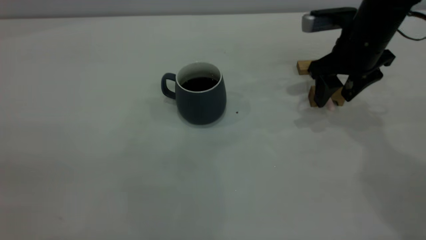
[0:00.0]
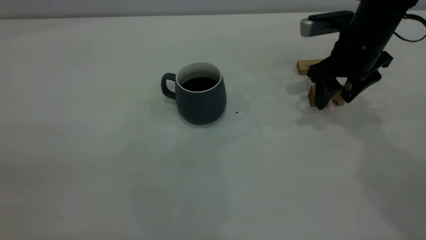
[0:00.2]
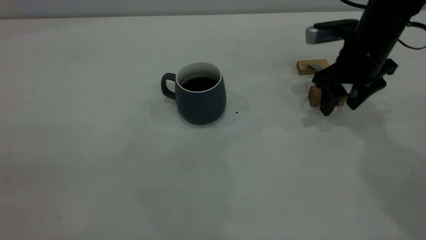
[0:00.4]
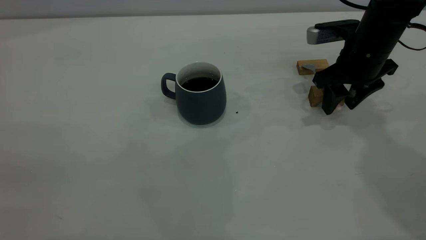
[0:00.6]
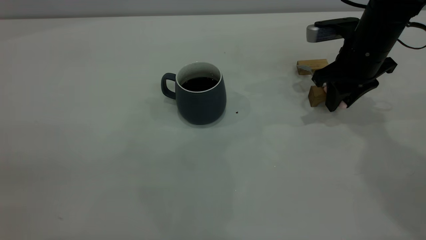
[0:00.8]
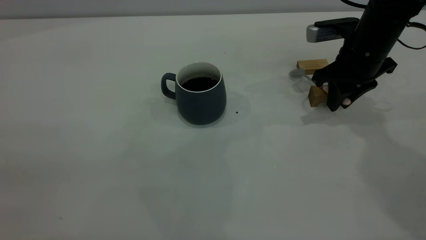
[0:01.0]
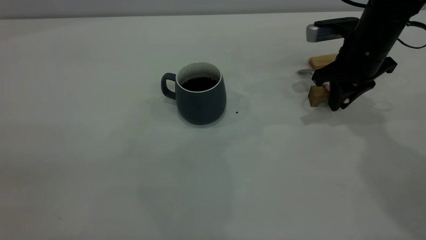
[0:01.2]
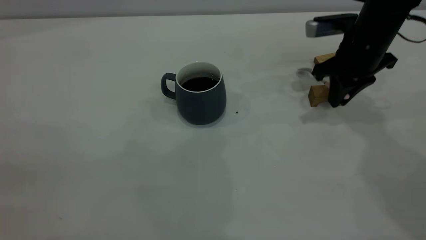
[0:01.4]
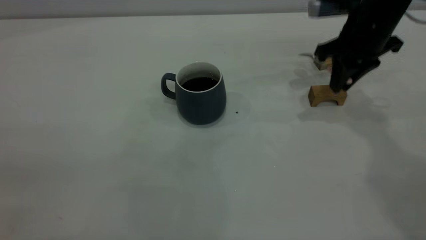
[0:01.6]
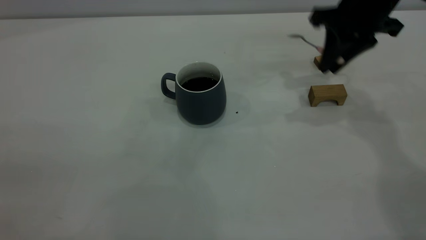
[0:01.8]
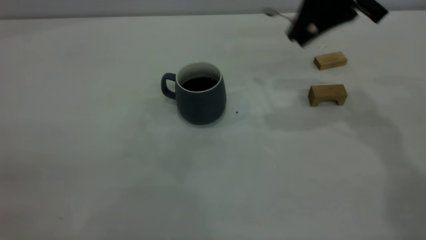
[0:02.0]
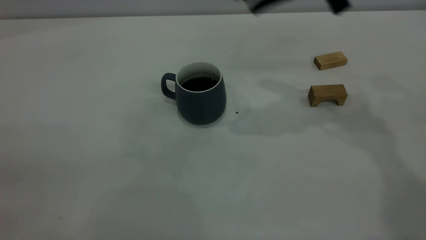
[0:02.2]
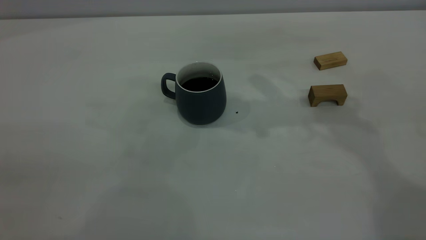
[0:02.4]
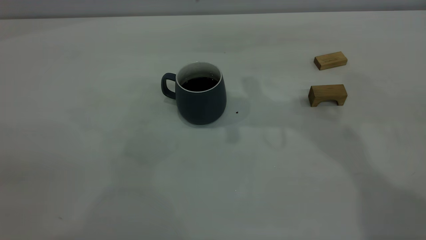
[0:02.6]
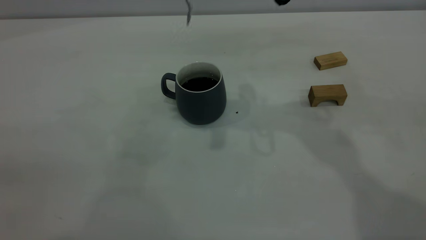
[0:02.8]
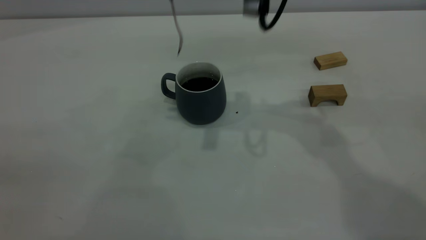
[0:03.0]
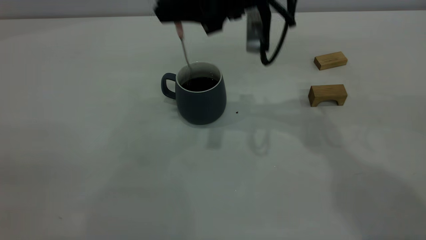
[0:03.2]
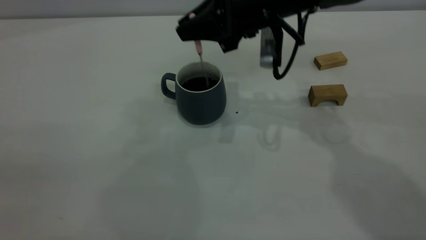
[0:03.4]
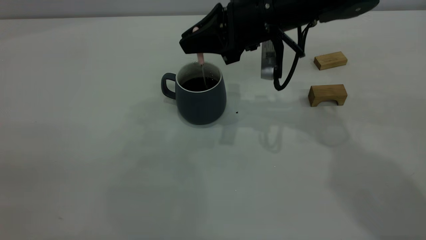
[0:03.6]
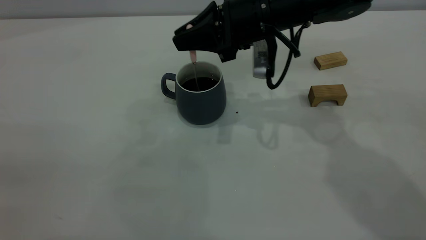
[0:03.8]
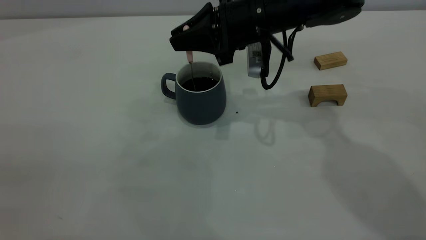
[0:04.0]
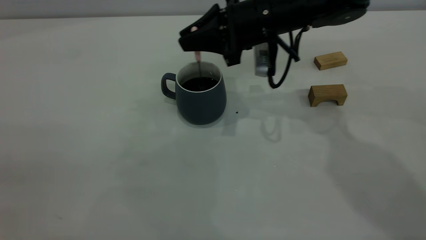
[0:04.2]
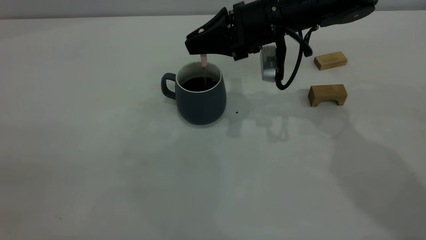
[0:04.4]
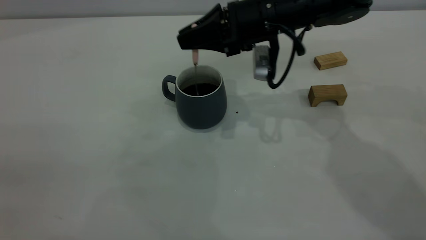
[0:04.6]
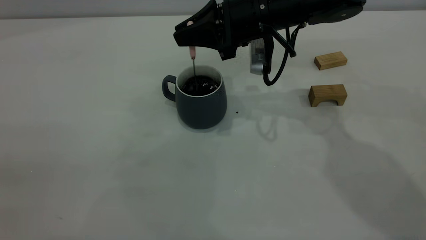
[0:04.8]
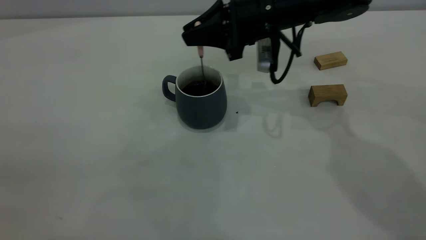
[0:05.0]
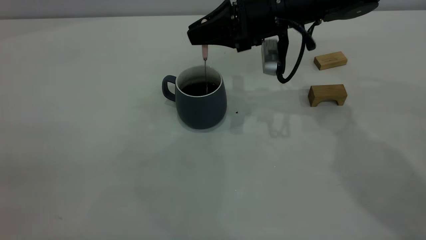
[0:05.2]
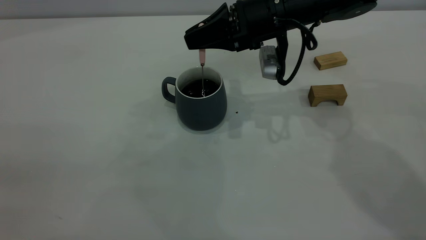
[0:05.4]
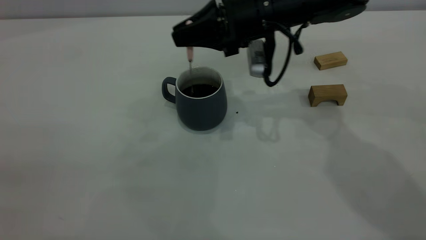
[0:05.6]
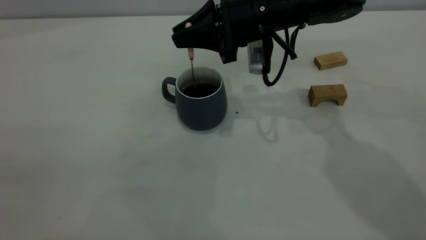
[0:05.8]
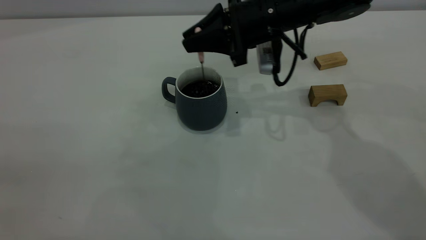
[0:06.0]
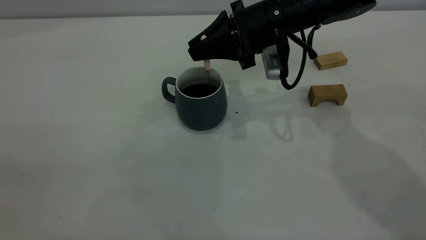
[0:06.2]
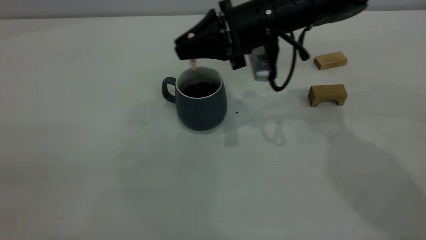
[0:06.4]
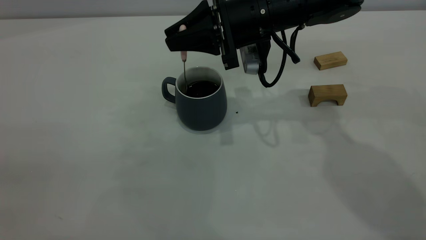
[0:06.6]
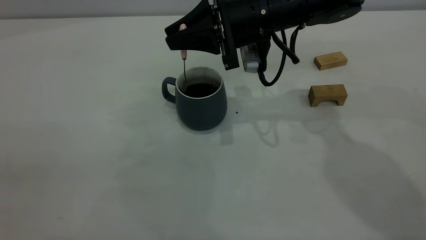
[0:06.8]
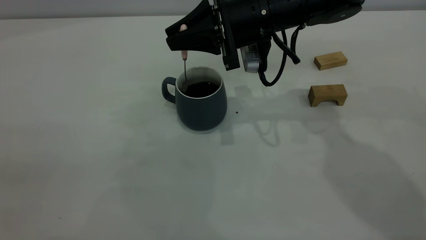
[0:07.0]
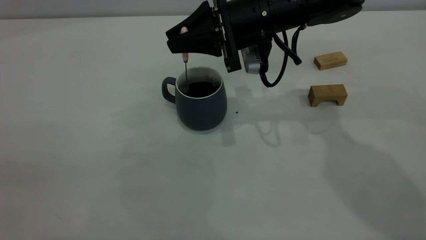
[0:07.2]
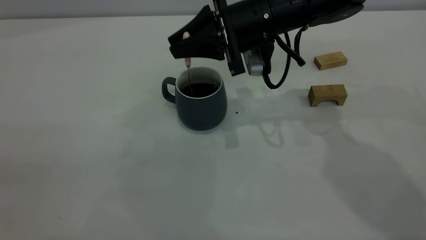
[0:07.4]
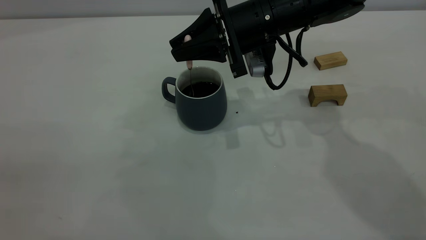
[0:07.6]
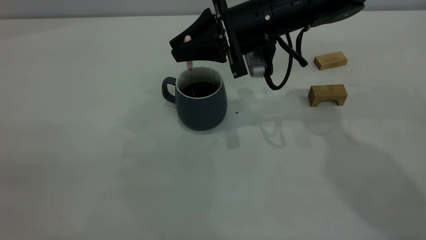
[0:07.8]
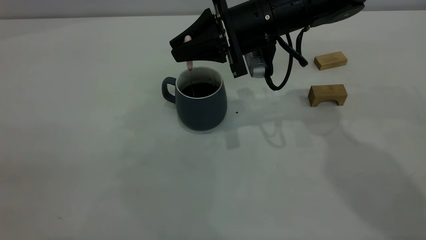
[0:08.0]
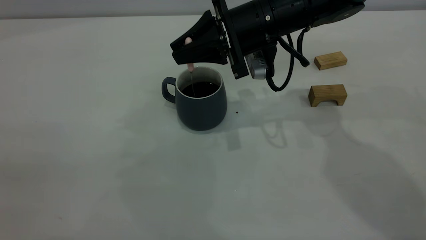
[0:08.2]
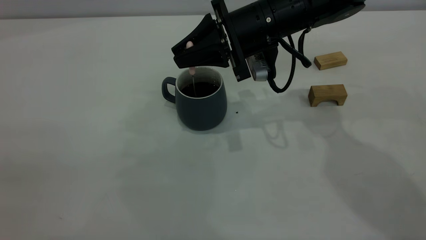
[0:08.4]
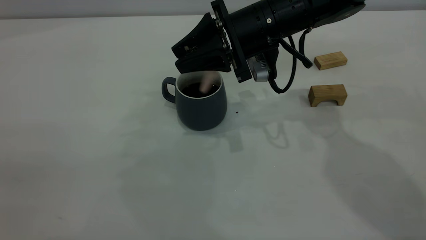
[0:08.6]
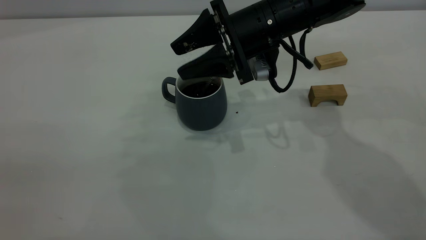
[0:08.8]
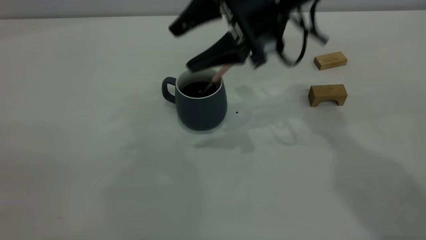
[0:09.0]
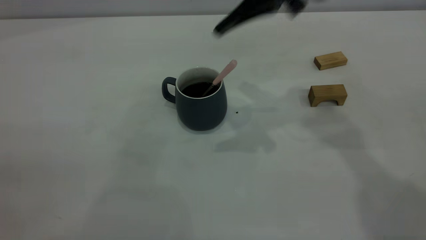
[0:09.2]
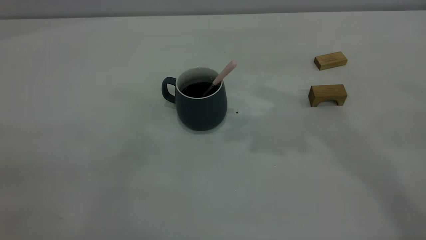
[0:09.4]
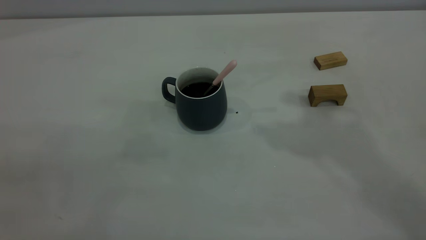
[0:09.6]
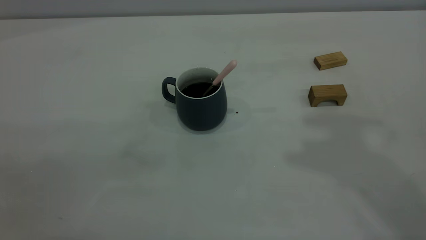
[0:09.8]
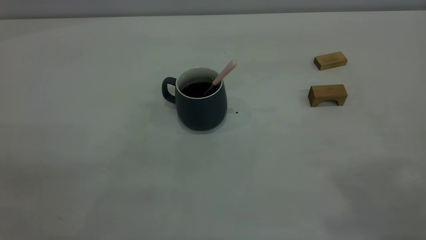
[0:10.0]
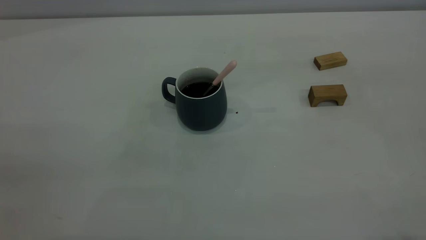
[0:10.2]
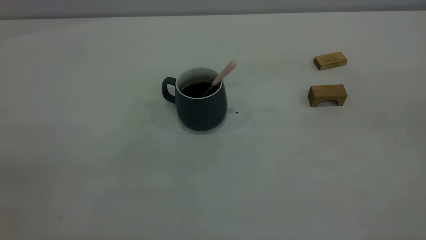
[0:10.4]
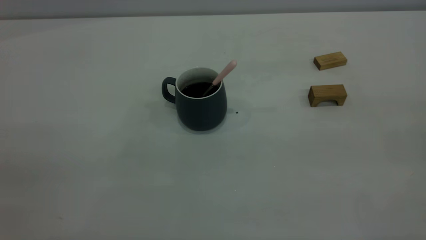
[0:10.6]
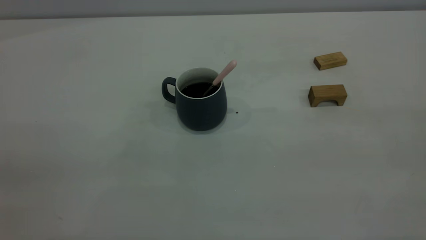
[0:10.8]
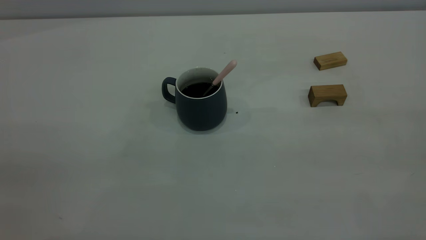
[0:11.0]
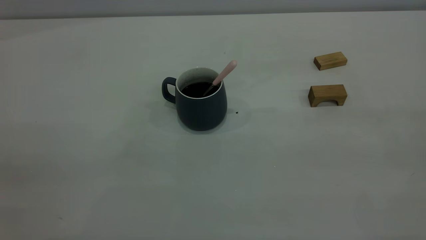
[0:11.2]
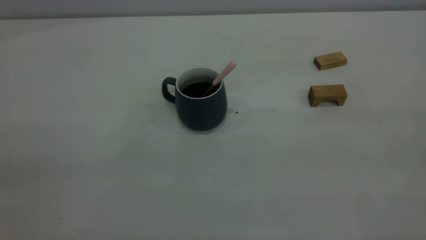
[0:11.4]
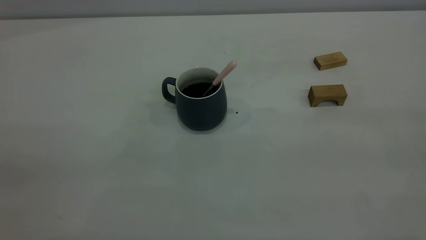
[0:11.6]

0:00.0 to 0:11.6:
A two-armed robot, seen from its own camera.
Step, 0:01.8 to 0:09.0: Stir the coffee in the cup.
0:00.0 to 0:01.4: The right gripper closes its fingers.
0:01.4 to 0:02.8: The right gripper goes some 25 cm upward and to the left.
0:02.8 to 0:04.4: The right gripper goes approximately 15 cm downward.
0:04.4 to 0:05.8: The grippers stay close to where they were, moving slightly.
0:05.8 to 0:07.2: There are only small adjustments of the grippers.
0:07.2 to 0:08.8: The right gripper opens its fingers.
0:08.8 to 0:10.2: The right gripper is displaced upward, backward and to the right by some 50 cm, and closes its fingers.
